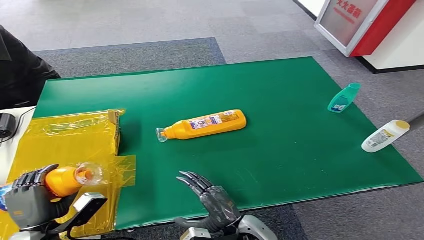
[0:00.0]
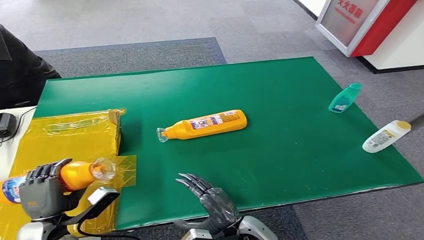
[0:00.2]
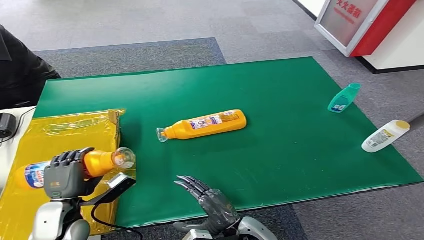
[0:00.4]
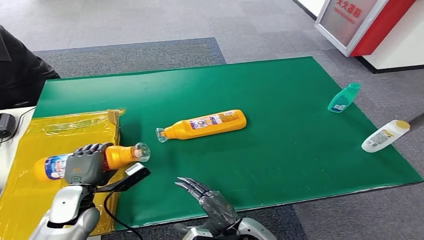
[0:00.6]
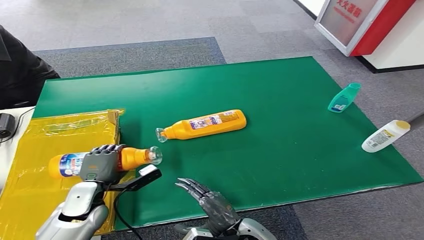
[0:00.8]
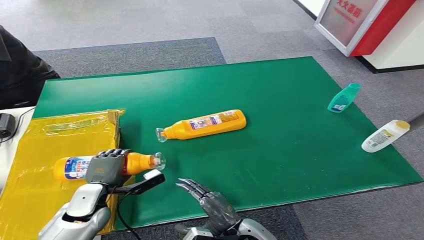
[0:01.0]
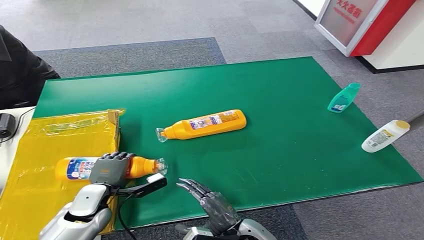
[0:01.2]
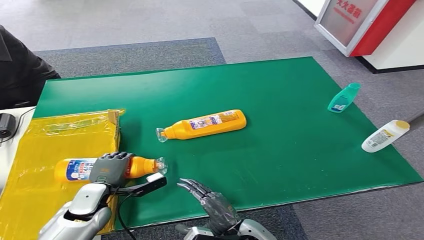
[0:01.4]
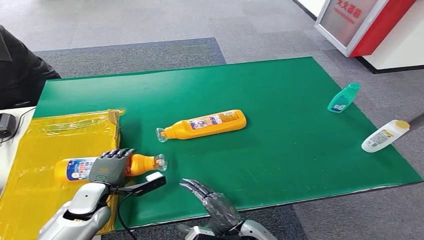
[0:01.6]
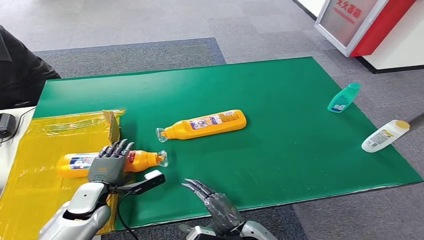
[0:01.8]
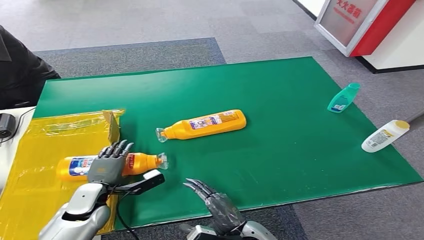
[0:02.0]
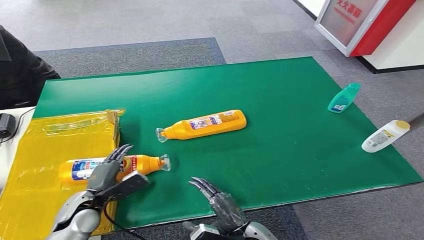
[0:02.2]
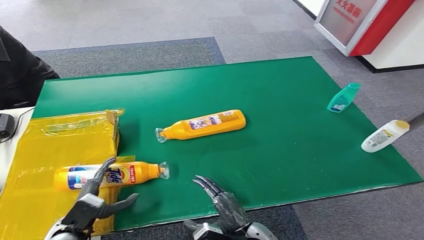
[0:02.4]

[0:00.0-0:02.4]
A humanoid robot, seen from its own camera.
Step, 0:00.0 to 0:02.4: Turn the bottle to the front side.
0:00.0 to 0:01.2: The left hand moves forward and to the right, approximately 10 cm.
0:01.2 to 0:02.4: The left hand shifts some 10 cm backward.
